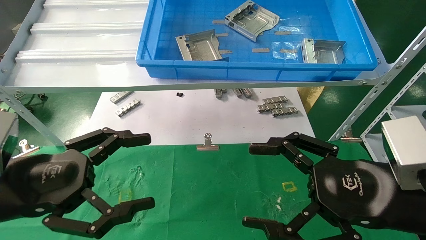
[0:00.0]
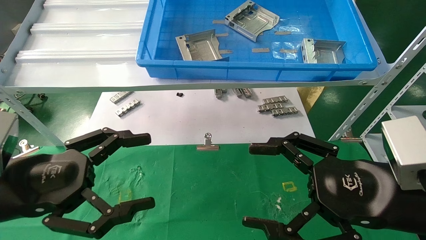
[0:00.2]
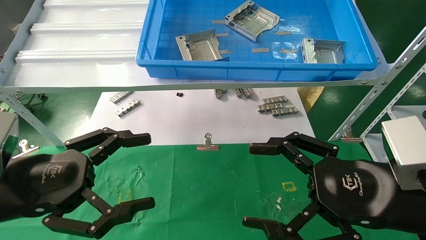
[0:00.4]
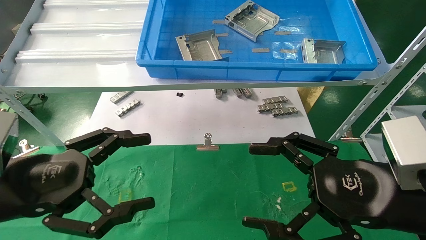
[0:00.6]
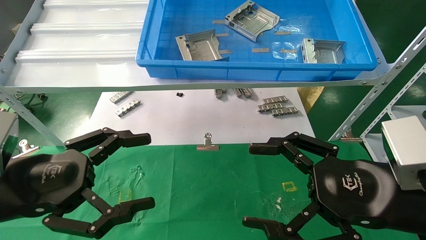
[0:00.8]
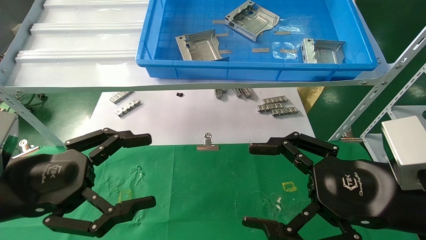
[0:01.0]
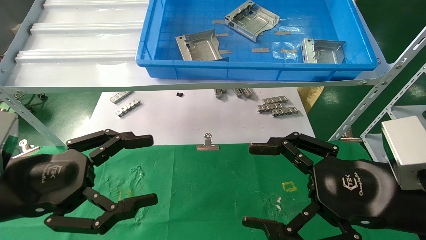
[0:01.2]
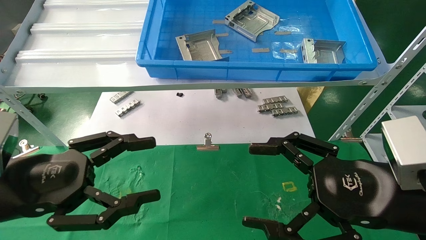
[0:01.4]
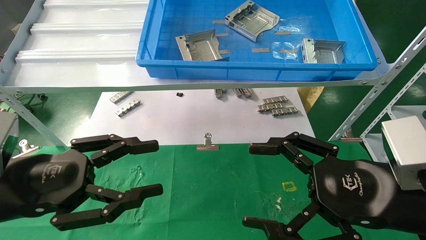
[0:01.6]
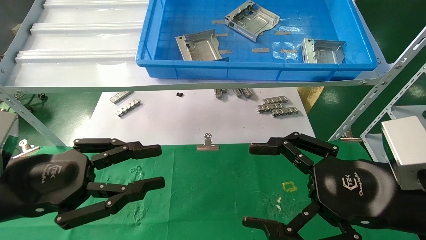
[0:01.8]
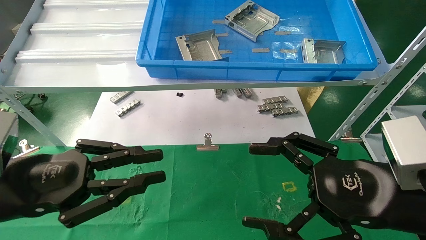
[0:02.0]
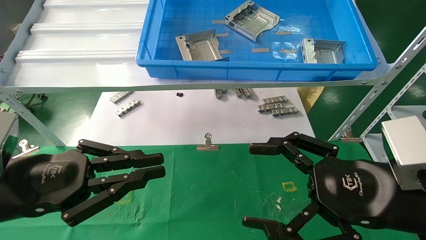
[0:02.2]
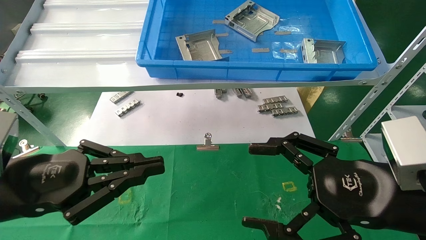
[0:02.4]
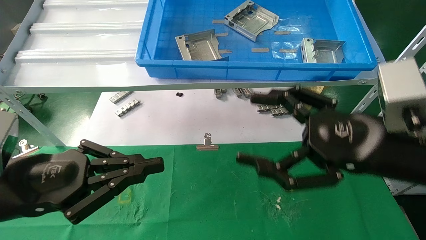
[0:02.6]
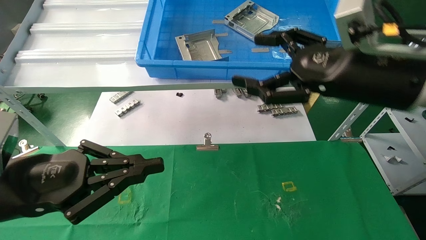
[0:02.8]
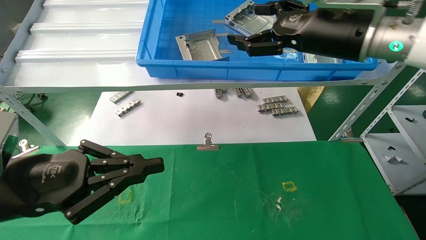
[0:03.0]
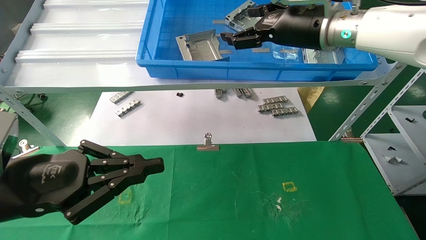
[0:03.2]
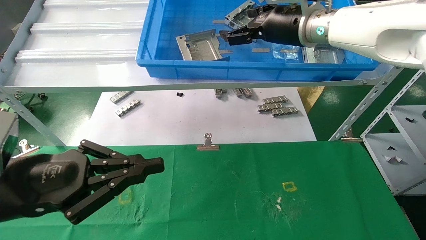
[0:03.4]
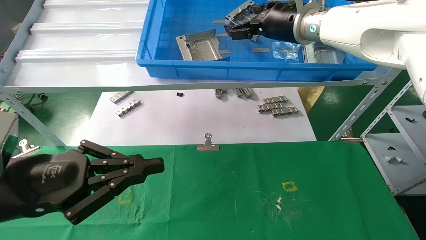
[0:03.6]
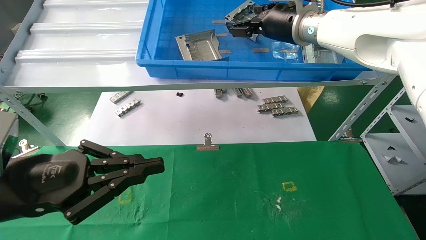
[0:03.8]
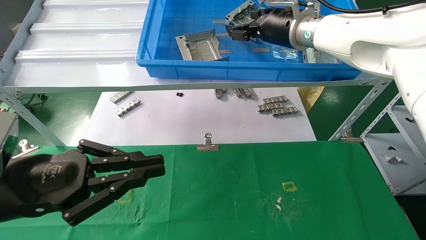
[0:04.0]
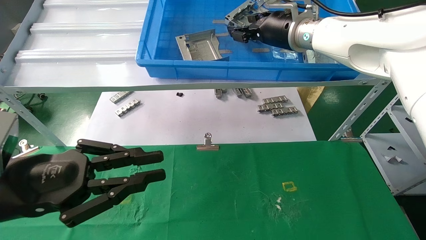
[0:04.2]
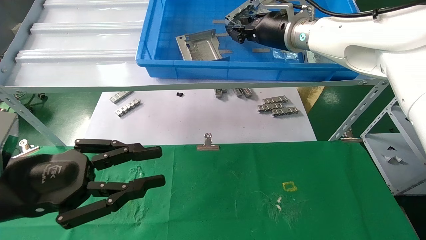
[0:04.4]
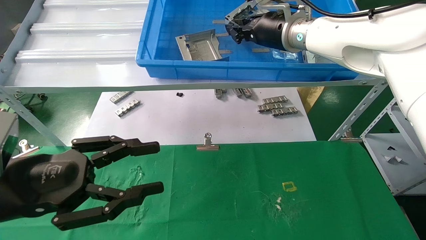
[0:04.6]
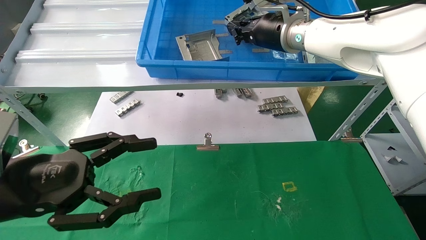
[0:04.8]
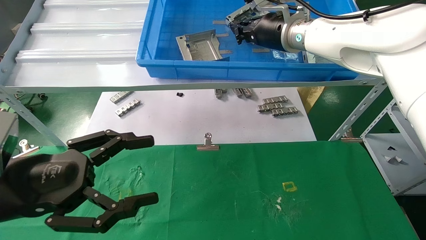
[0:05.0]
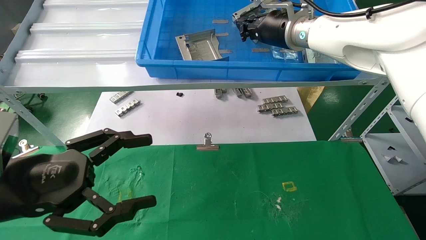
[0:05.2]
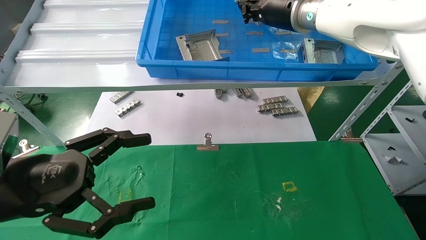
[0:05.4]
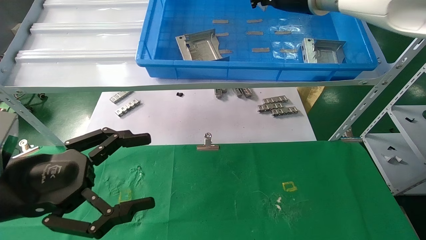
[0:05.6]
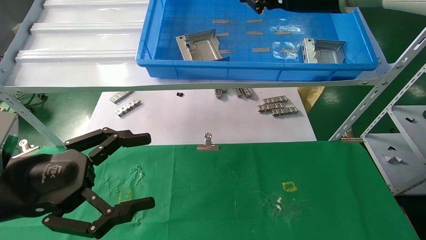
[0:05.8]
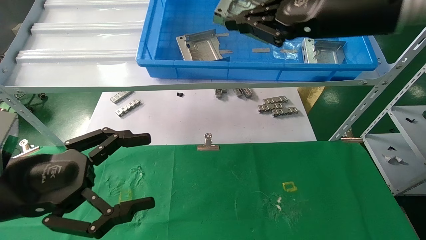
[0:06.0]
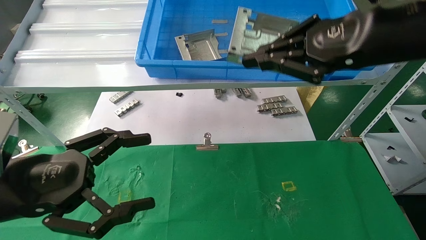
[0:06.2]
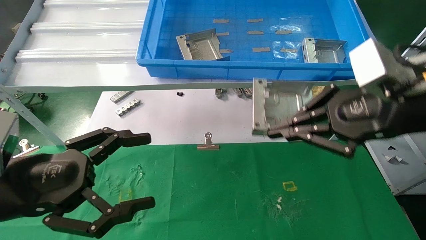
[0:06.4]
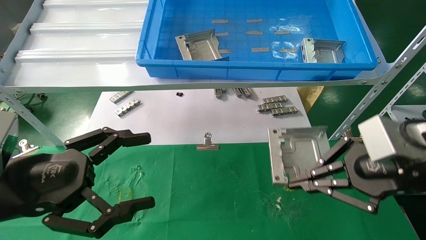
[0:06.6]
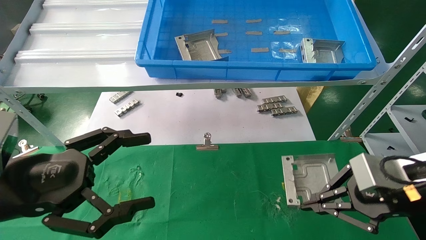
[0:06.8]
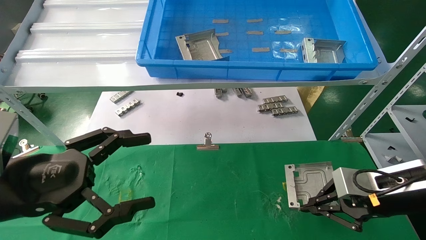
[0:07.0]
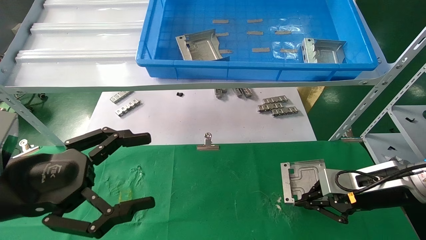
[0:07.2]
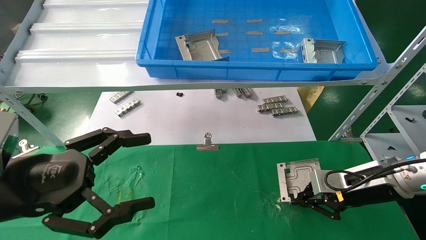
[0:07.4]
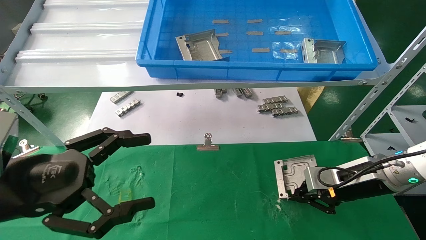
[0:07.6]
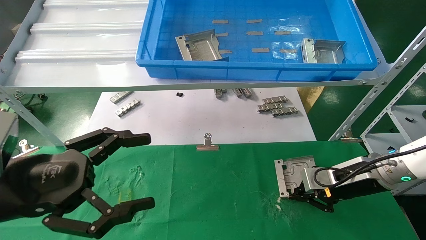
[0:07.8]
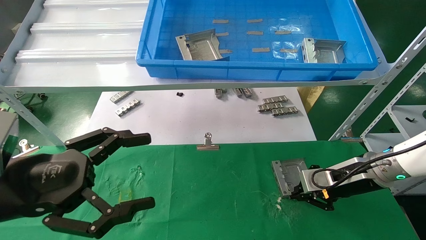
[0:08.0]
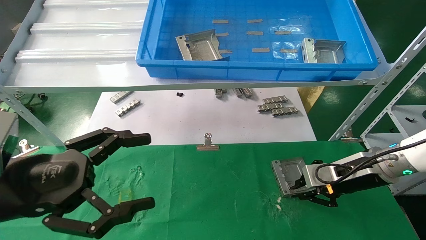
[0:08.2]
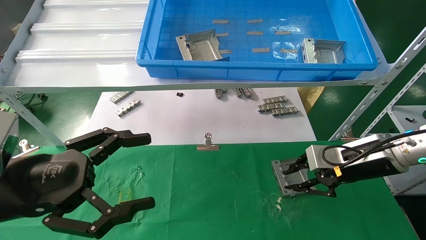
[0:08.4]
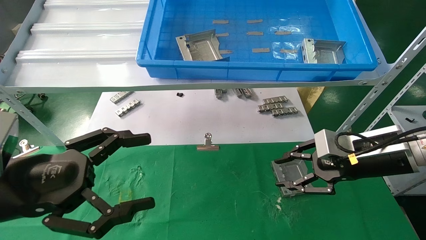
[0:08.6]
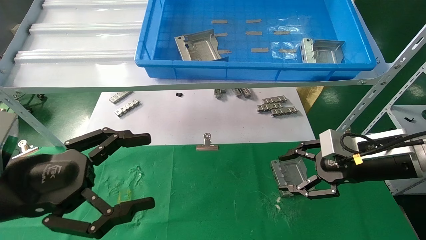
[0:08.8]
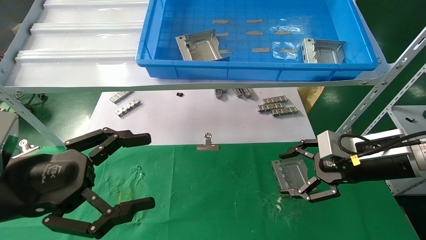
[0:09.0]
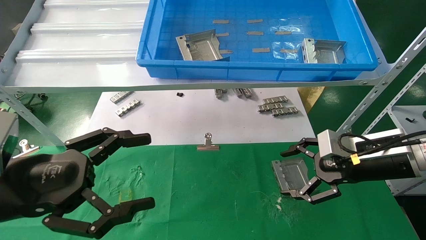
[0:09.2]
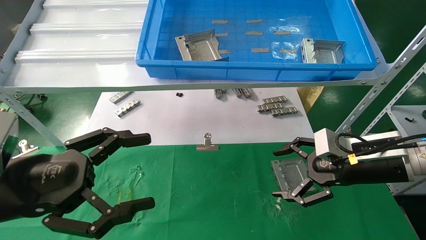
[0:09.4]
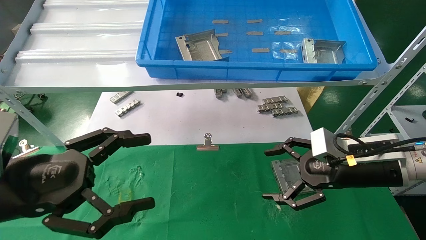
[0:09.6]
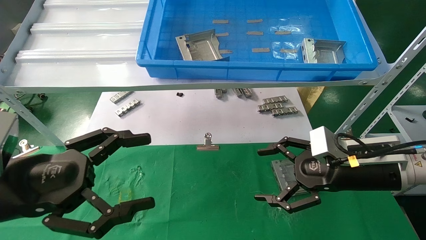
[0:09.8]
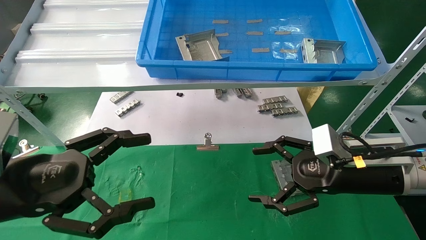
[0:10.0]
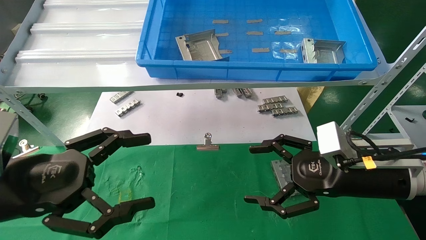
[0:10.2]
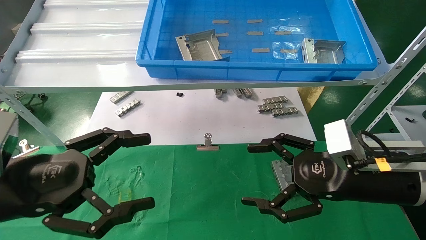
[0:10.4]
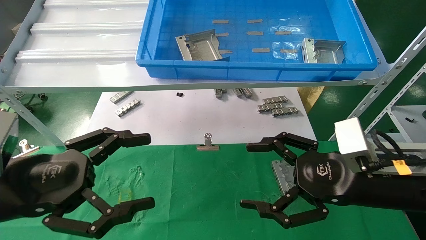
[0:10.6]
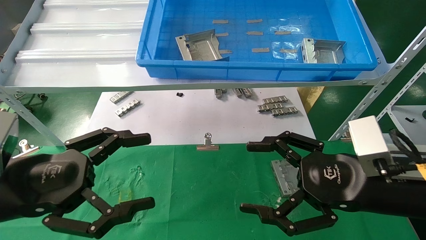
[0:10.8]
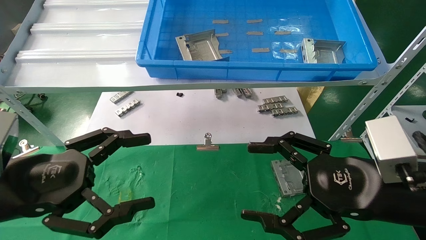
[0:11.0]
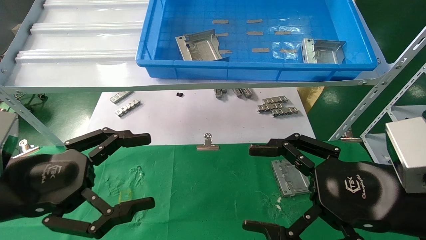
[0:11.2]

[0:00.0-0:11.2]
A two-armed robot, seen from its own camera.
Task of the whole recording: use the mechanical arm to pick up the parts and place them on the table.
Step, 0:02.6 to 0:06.2: Pick up the hard drive bracket from the feeding area.
Step, 0:06.4 to 0:09.0: Place the hard drive bracket into the box.
0:00.0 to 0:01.6: Both grippers stay put.
0:01.6 to 0:03.2: The right gripper moves forward and upward, approximately 30 cm, while the left gripper closes.
0:03.2 to 0:04.8: The right gripper travels forward by about 5 cm, and closes. Meanwhile the left gripper opens up.
0:04.8 to 0:06.4: The right gripper is displaced backward and to the right by approximately 25 cm; the left gripper opens up.
0:06.4 to 0:08.0: The right gripper moves downward and forward, approximately 25 cm.
0:08.0 to 0:09.6: The right gripper heads backward, covering roughly 5 cm, and opens up.
0:09.6 to 0:11.2: The right gripper heads backward, covering approximately 10 cm.
